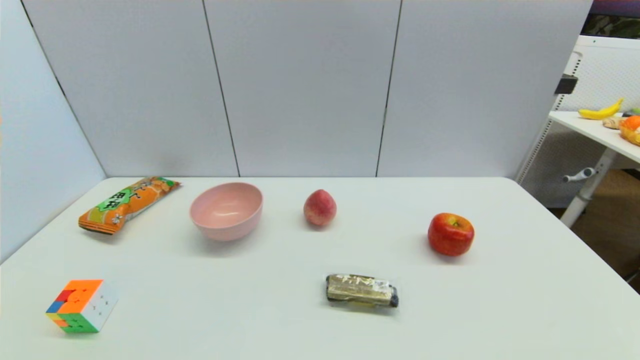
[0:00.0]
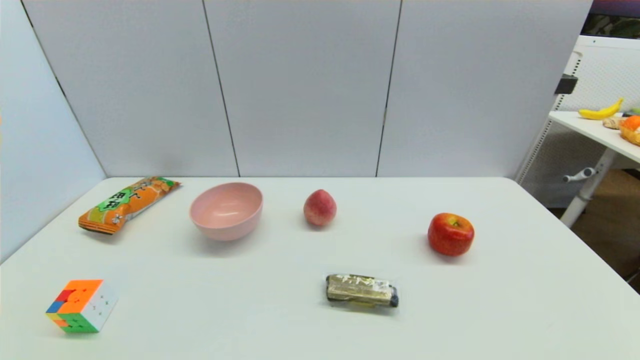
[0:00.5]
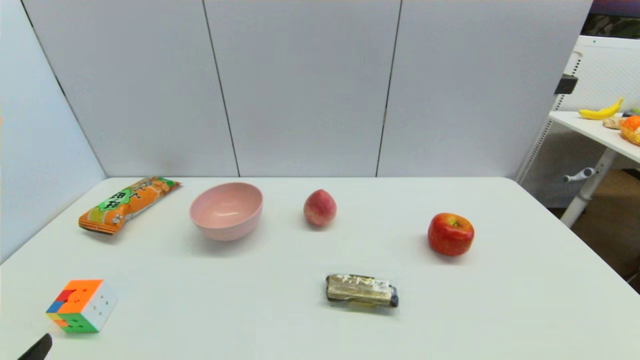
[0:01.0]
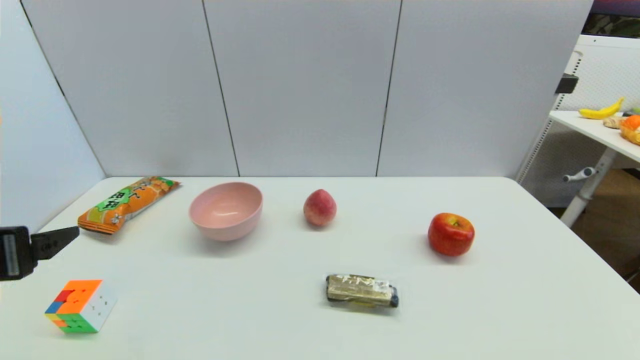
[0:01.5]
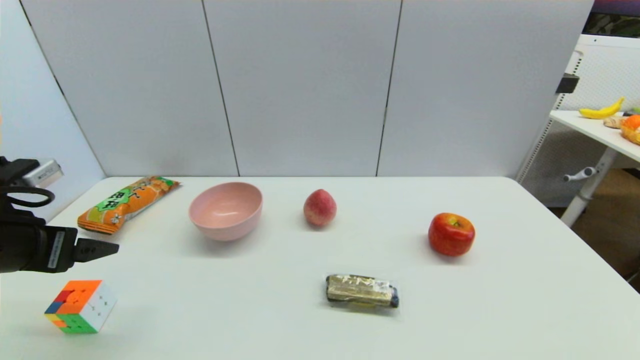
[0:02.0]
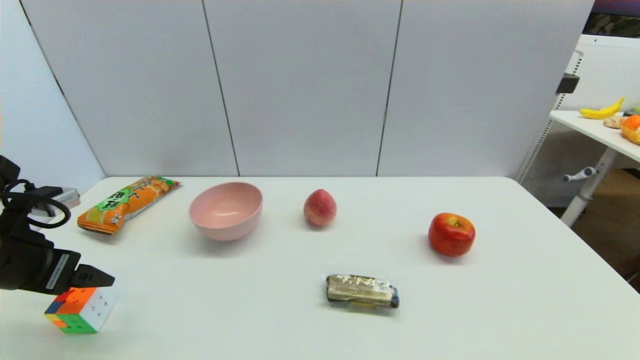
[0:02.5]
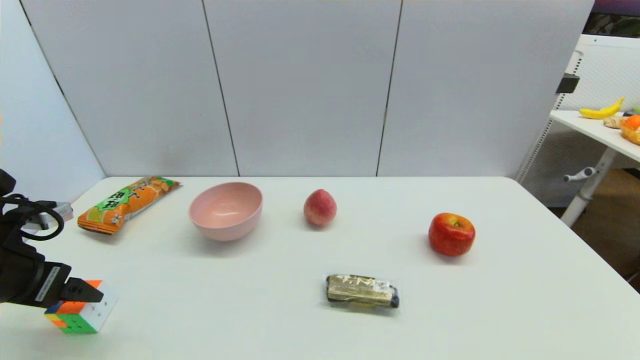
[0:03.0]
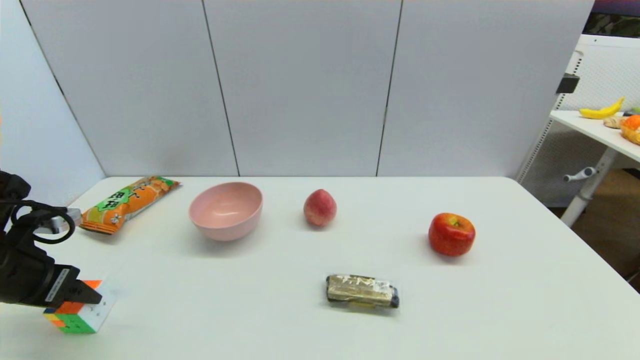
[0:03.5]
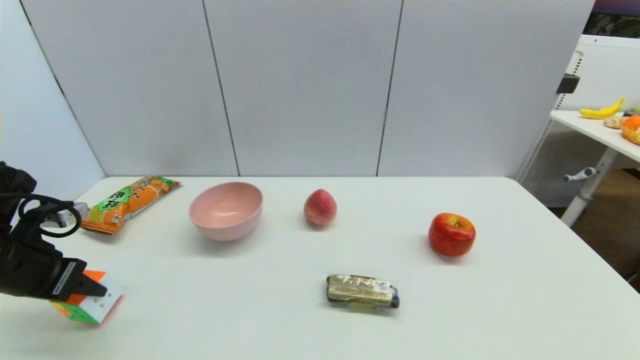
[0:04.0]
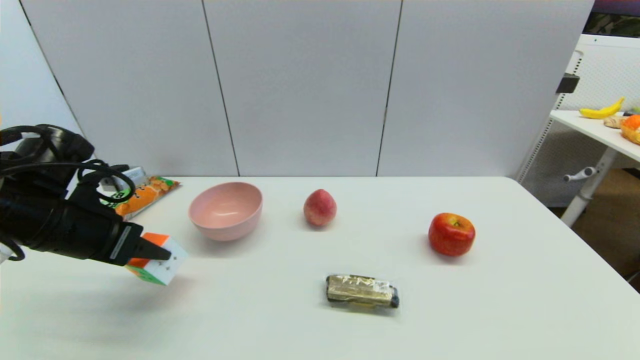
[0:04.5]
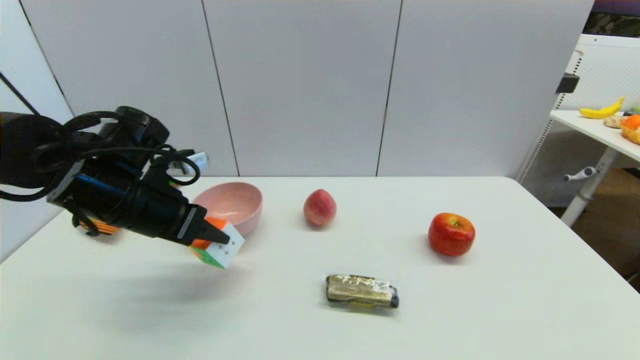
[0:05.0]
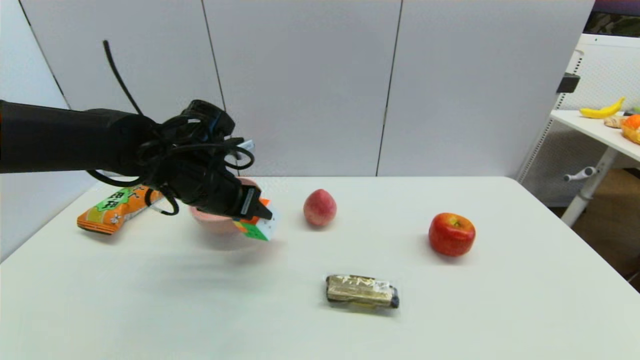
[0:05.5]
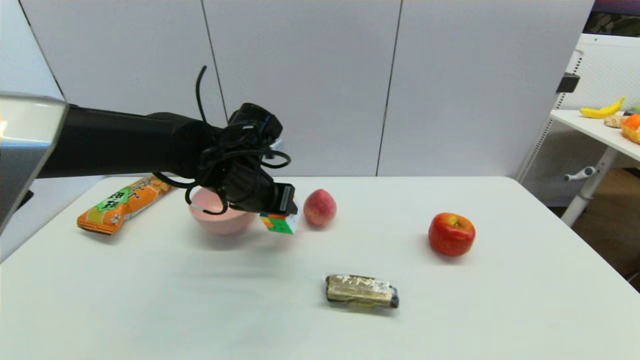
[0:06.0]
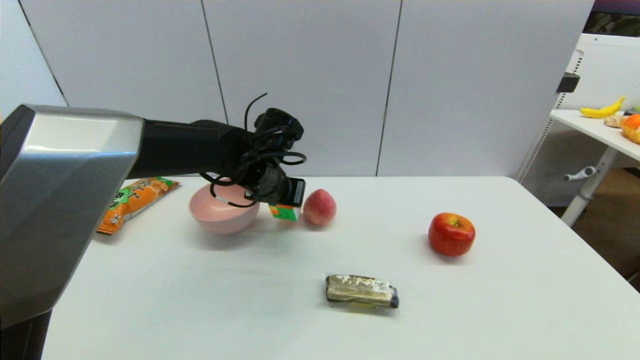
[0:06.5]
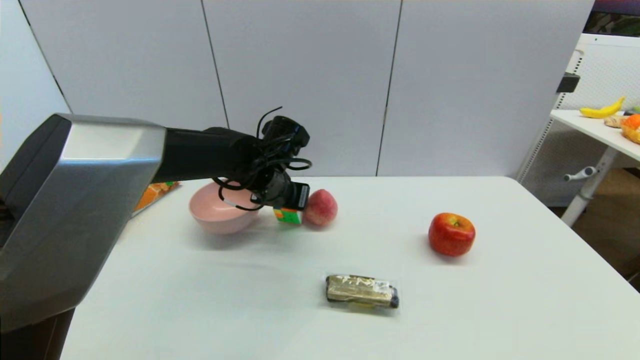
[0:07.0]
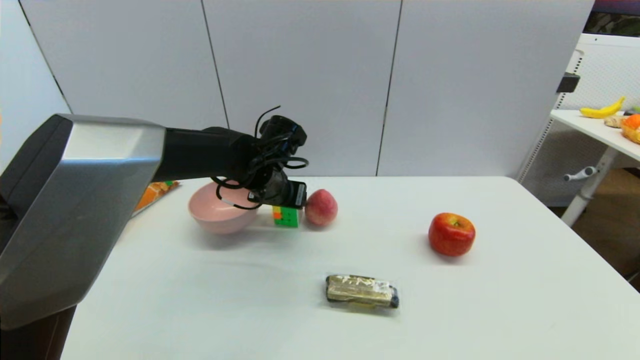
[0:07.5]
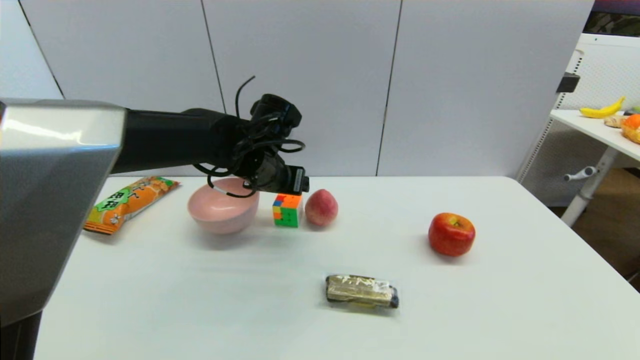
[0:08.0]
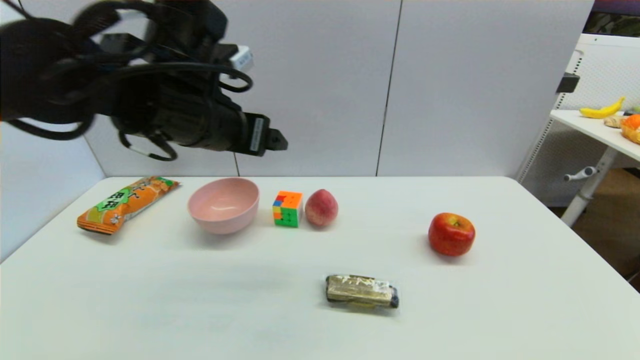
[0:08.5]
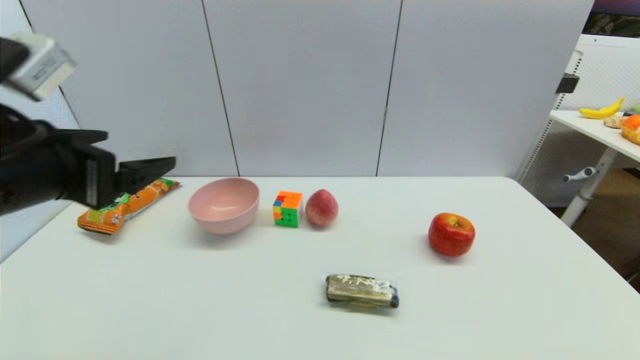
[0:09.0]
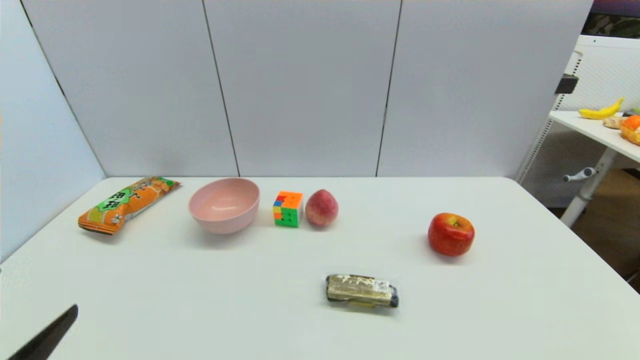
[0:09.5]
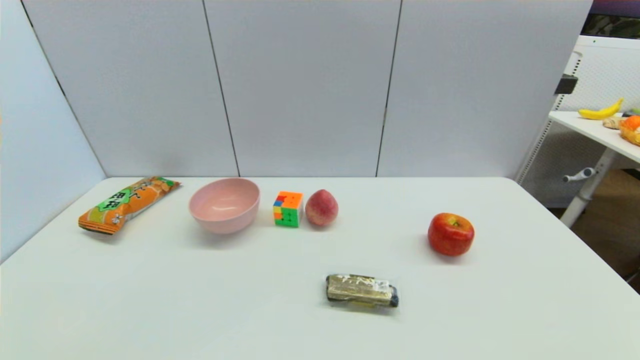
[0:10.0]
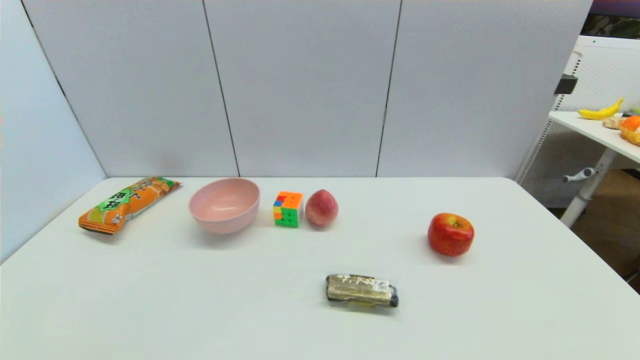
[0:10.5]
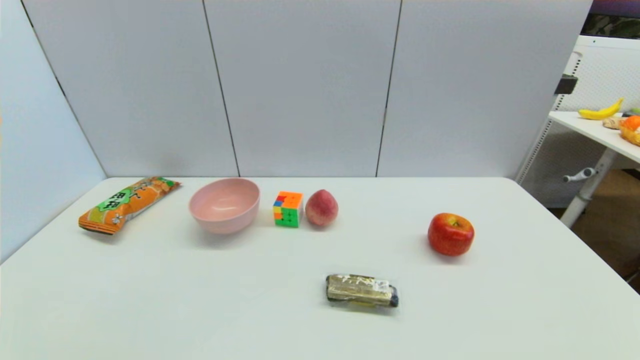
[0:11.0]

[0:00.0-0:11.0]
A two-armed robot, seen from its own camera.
Step, 0:01.0 to 0:03.5: Grasp the magic cube with left gripper.
Step, 0:04.0 to 0:08.0: Place the magic cube on the table with left gripper.
0:00.0 to 0:02.0: The left gripper moves forward and upward, about 25 cm.
0:02.0 to 0:03.5: The left gripper moves about 5 cm, and closes its fingers.
0:03.5 to 0:05.5: The left gripper goes approximately 25 cm to the right and forward, and closes.
0:05.5 to 0:07.5: The left gripper is displaced to the right and forward by approximately 10 cm, and opens up.
0:07.5 to 0:09.0: The left gripper shifts about 30 cm backward, to the left and upward, and opens its fingers.
0:09.0 to 0:11.0: The left gripper is displaced downward and backward by approximately 30 cm.
